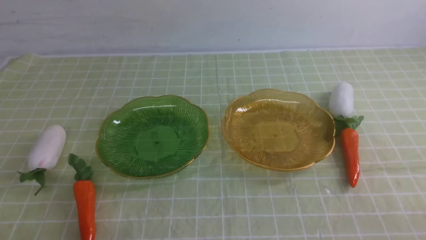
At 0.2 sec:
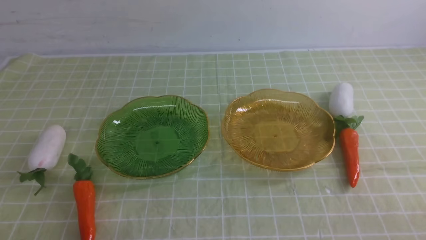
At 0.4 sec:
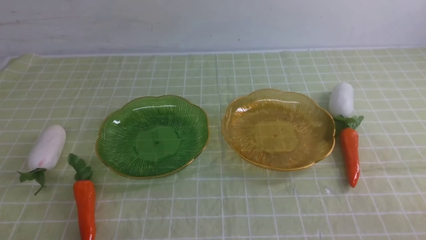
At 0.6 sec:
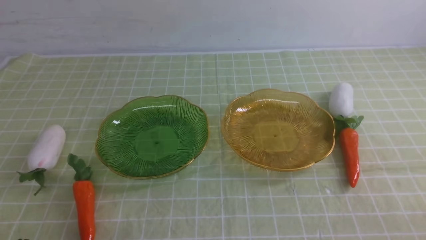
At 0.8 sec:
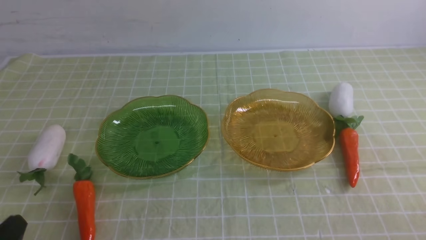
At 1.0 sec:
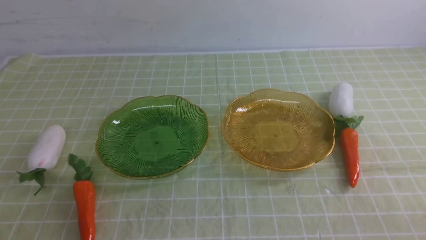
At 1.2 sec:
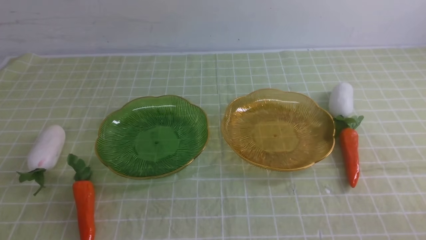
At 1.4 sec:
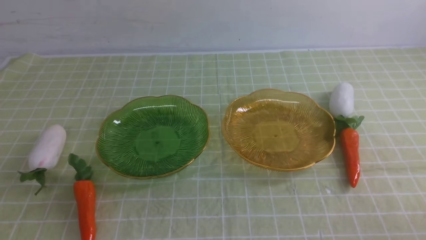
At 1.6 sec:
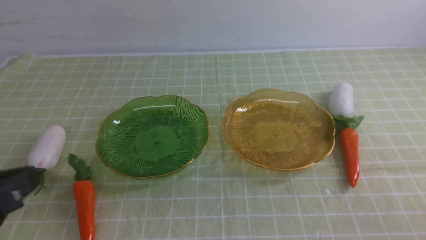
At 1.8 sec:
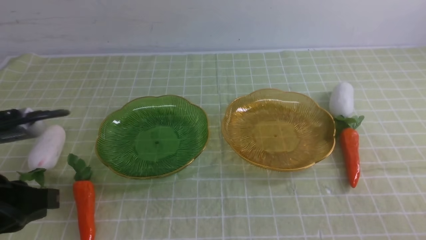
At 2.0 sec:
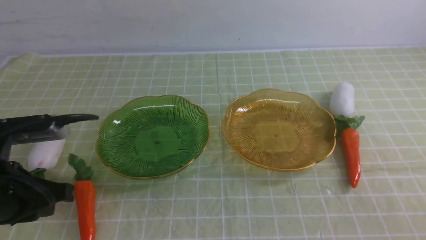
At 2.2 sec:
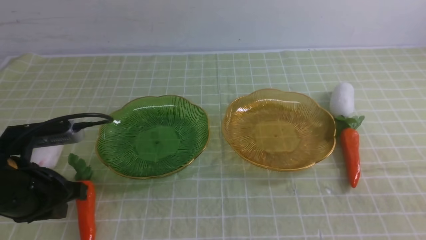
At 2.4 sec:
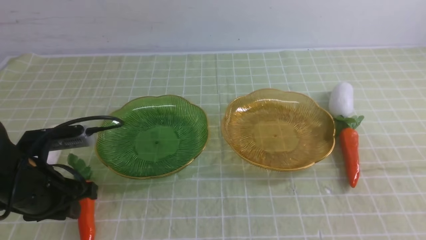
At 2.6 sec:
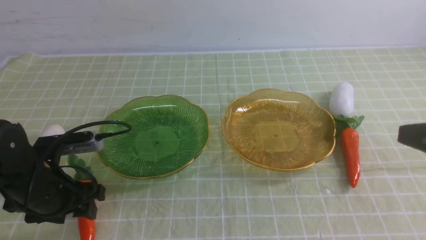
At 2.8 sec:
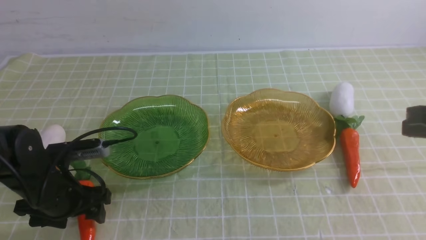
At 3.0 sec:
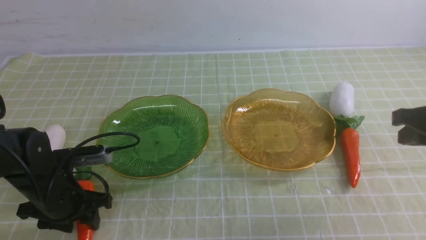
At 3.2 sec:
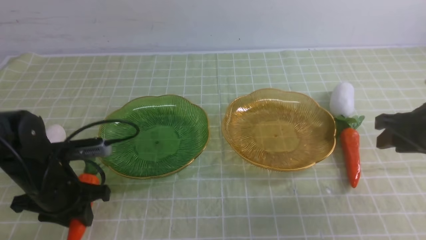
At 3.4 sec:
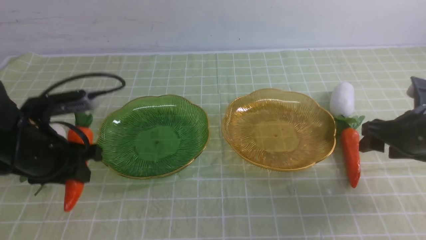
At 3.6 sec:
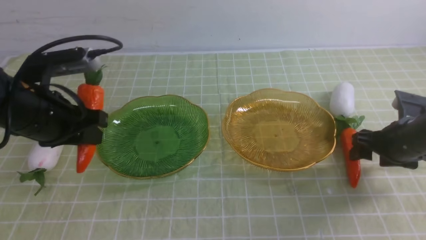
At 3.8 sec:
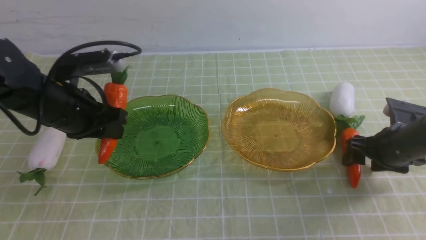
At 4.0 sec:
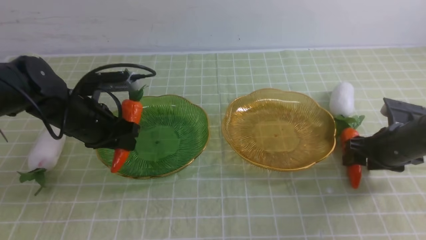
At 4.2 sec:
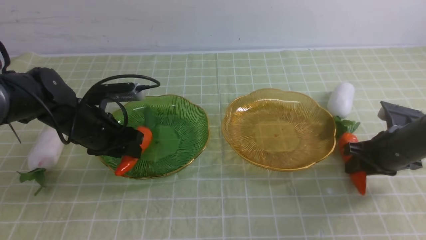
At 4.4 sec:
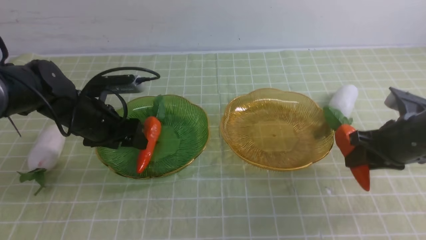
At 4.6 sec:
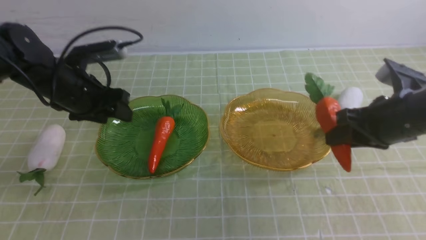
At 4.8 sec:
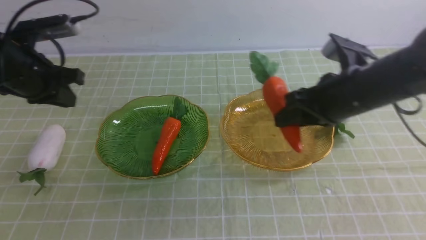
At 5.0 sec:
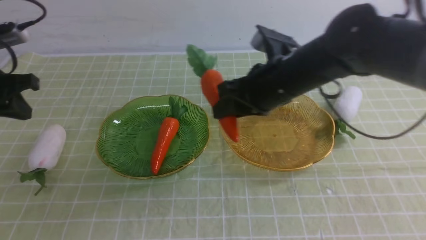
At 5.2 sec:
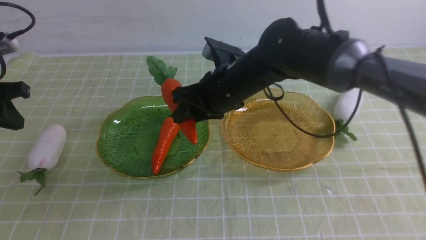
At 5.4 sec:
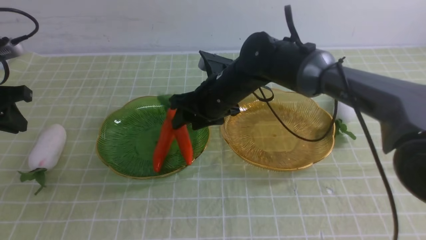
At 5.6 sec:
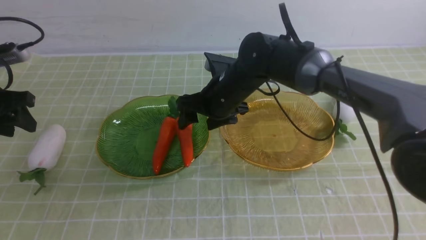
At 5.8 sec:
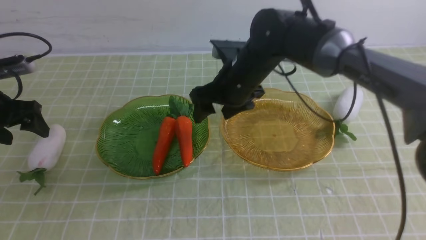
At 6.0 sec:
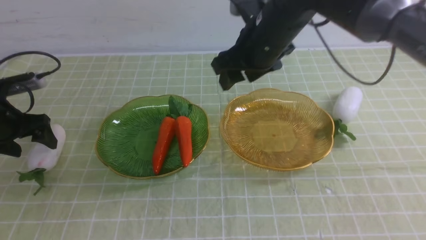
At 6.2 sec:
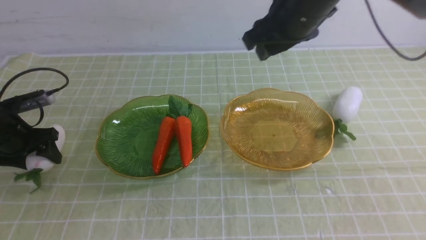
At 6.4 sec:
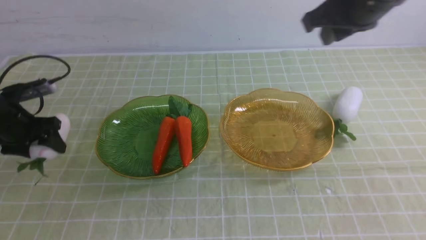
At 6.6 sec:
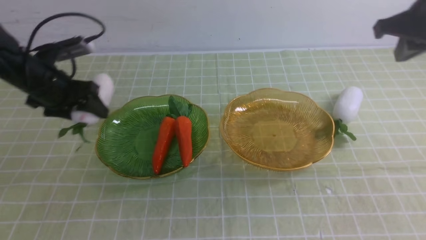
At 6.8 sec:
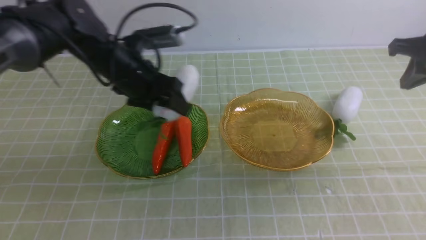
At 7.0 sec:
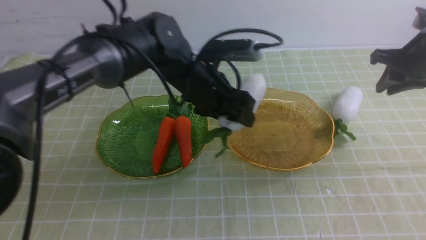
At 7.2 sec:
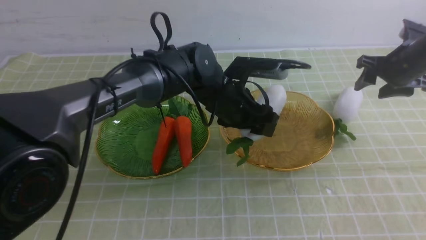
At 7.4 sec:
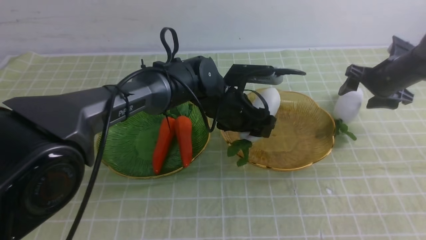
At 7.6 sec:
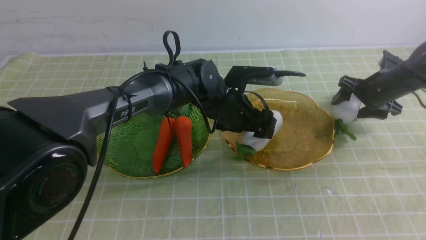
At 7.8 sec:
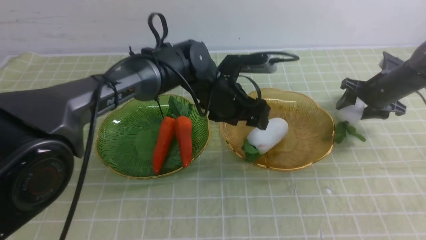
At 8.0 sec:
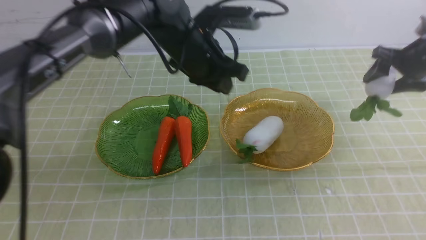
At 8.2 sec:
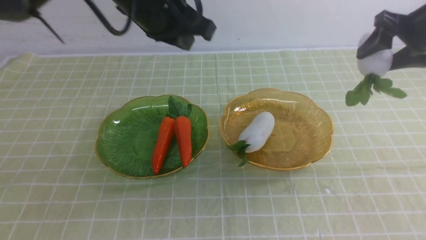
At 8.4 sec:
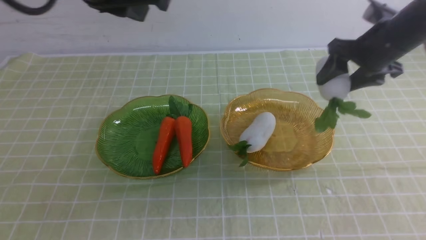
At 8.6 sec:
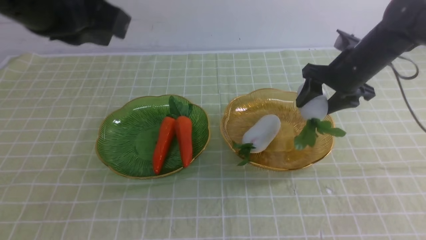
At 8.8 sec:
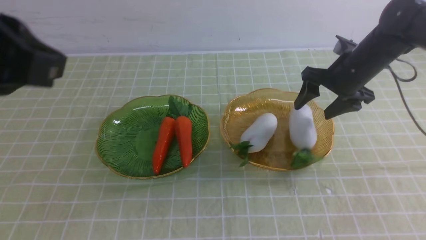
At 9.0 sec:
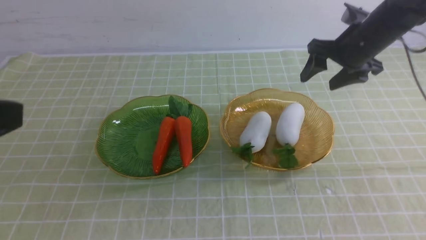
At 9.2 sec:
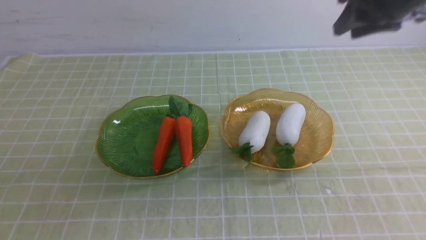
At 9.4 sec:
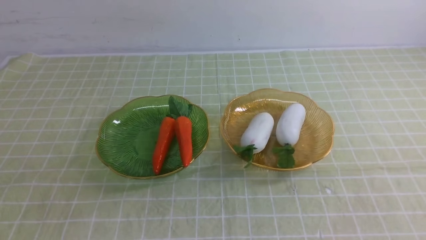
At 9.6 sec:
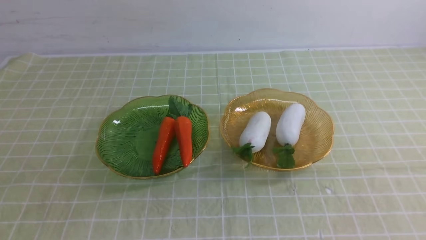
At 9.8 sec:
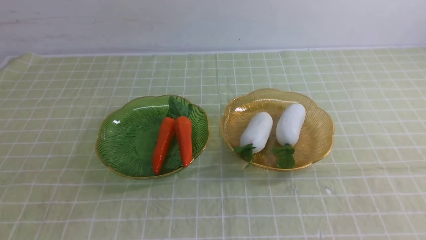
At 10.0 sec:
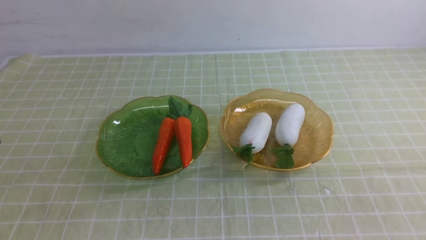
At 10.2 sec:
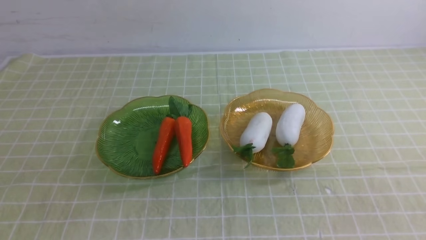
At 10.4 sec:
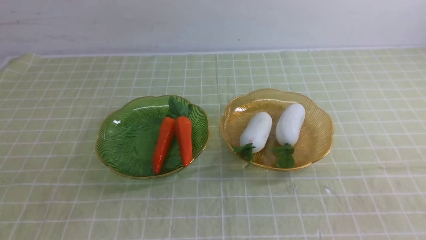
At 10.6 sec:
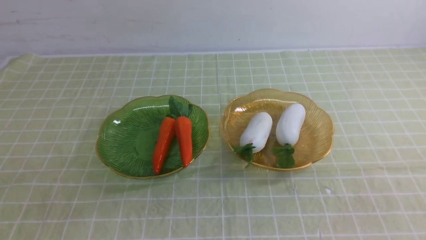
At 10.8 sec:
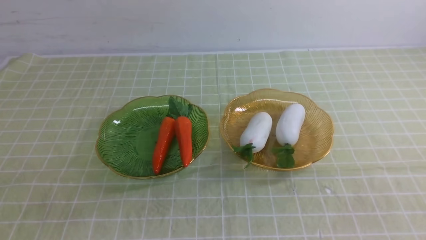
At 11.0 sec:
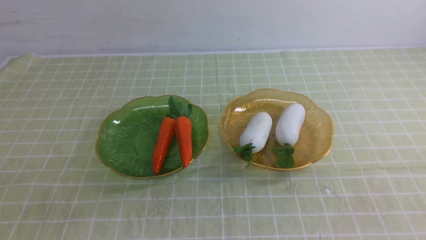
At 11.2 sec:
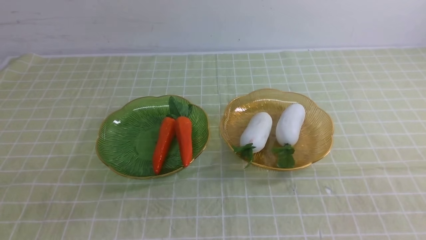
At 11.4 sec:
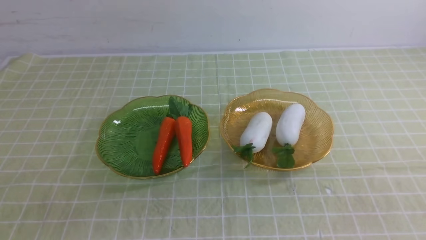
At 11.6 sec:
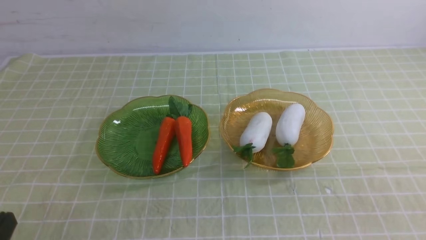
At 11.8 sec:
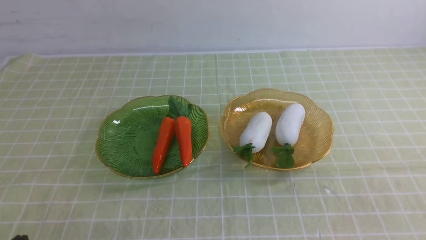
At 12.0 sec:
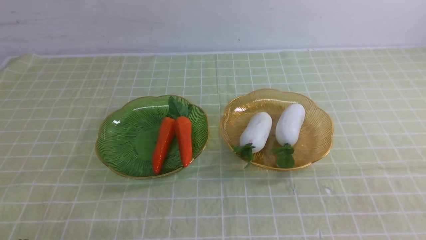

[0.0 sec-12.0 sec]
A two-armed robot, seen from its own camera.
Step, 0.0 sec to 3.8 sec: use the left arm to grab a carrot and put it into the left plate.
Step, 4.0 sec to 6.4 sec: use the right arm to grab a carrot and put it into the left plate.
Step, 6.6 sec to 8.0 sec: use the left arm to grab a radish and put it into the right plate.
Step, 8.2 sec to 10.0 sec: use the right arm to grab a radish and put it into the right plate.
0.0 sec to 1.6 sec: The left gripper moves upward, roughly 15 cm.
1.6 sec to 3.0 sec: The left gripper moves downward and forward, about 25 cm, and opens its fingers. Meanwhile the right gripper goes some 20 cm forward.
3.0 sec to 4.4 sec: The left gripper goes approximately 10 cm forward and upward. Meanwhile the right gripper shifts approximately 5 cm downward, and opens and closes again.
4.4 sec to 6.0 sec: The right gripper shifts roughly 25 cm to the left, upward and forward, and opens; the left gripper shifts roughly 15 cm to the left, and closes and opens again.
6.0 sec to 7.6 sec: The left gripper shifts roughly 40 cm to the right; the right gripper moves to the right and downward, about 30 cm, and closes and opens again.
7.6 sec to 9.0 sec: The right gripper goes up and down, about 15 cm each way, reversing 2 times; the left gripper moves backward, to the left and upward, approximately 40 cm, and closes its fingers.
9.0 sec to 10.4 sec: The right gripper is displaced backward by about 40 cm, and closes up. The left gripper is displaced downward by approximately 5 cm.

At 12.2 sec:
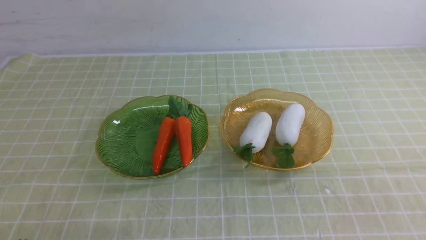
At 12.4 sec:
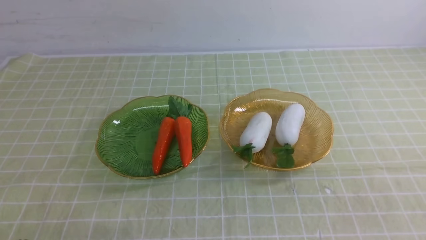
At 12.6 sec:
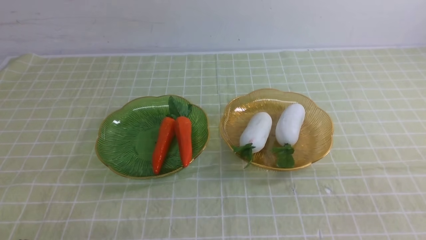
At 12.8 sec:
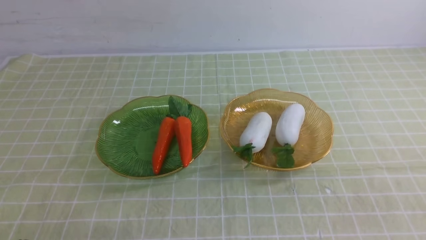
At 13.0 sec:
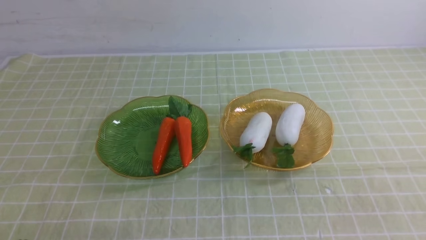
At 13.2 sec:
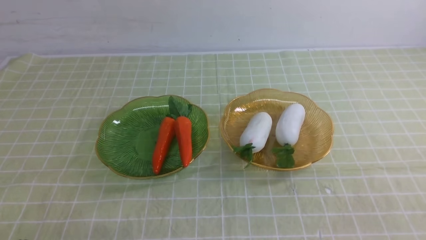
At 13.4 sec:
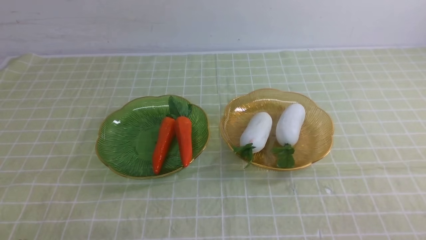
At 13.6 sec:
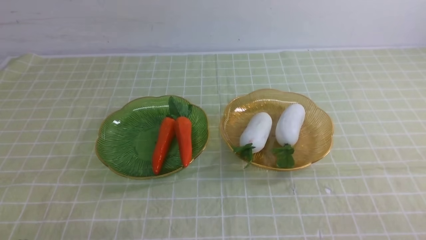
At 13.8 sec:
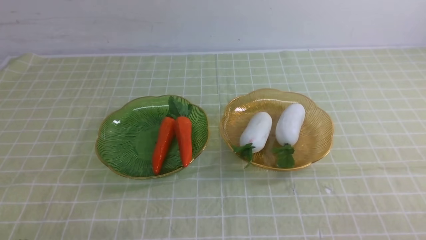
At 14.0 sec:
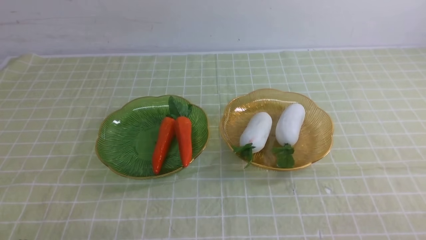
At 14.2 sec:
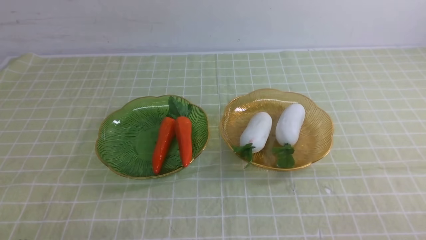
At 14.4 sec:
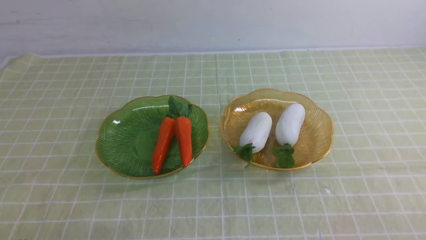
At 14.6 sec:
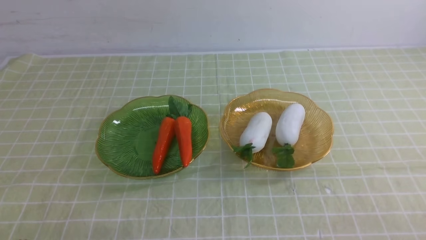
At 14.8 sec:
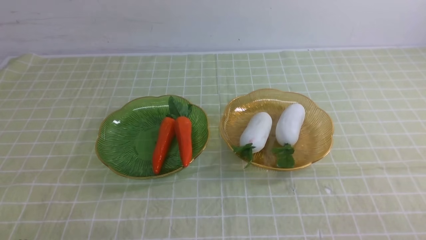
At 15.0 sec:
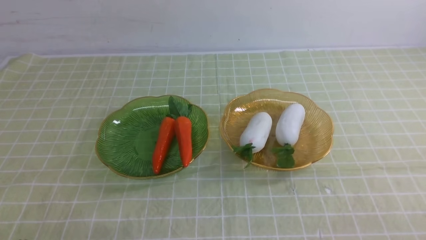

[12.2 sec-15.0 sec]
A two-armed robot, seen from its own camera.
13.6 sec to 15.0 sec: Both grippers stay about where they are.
